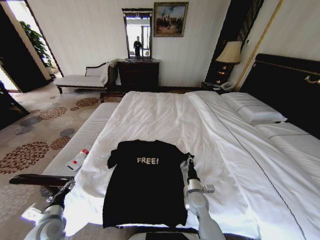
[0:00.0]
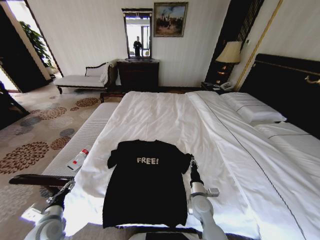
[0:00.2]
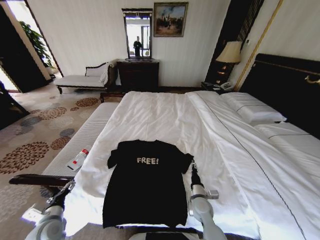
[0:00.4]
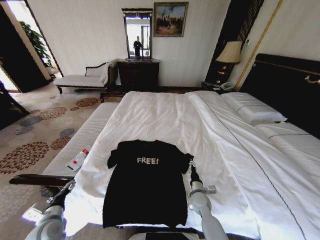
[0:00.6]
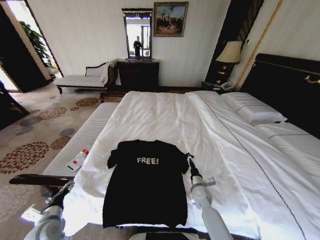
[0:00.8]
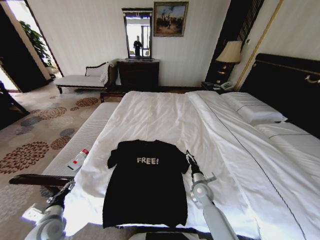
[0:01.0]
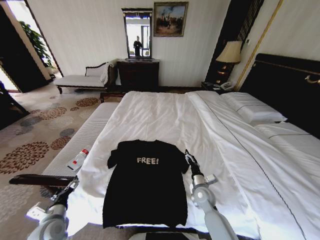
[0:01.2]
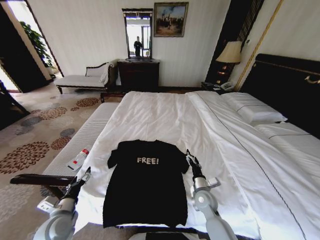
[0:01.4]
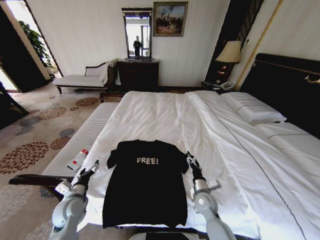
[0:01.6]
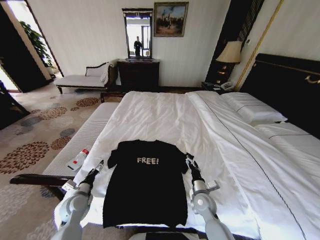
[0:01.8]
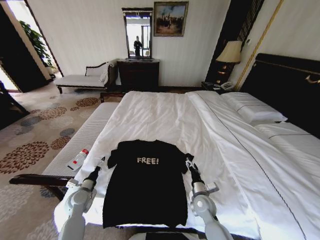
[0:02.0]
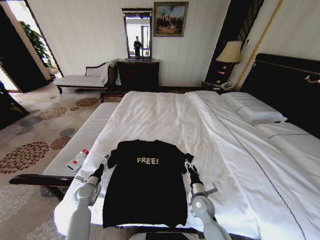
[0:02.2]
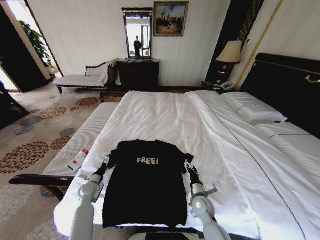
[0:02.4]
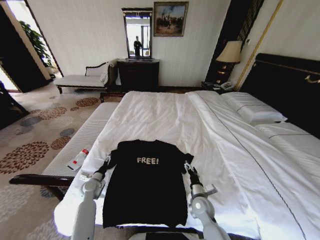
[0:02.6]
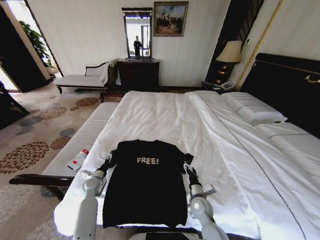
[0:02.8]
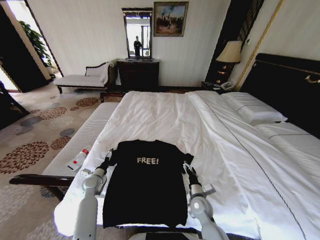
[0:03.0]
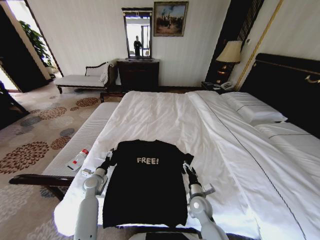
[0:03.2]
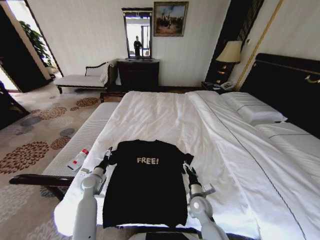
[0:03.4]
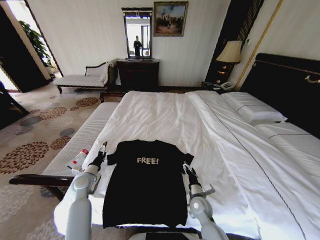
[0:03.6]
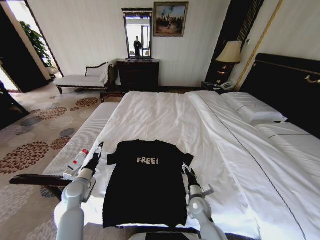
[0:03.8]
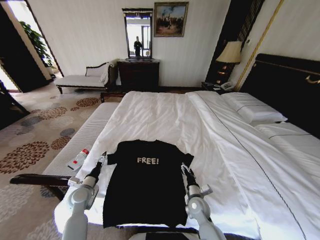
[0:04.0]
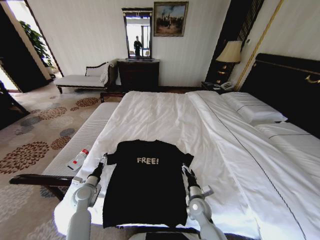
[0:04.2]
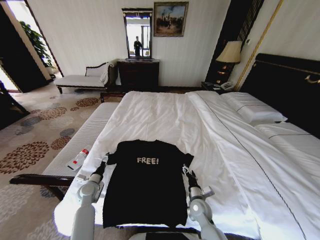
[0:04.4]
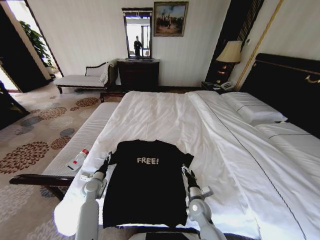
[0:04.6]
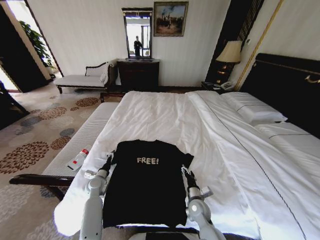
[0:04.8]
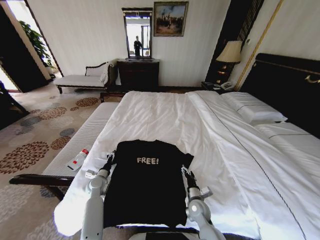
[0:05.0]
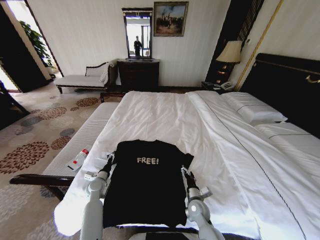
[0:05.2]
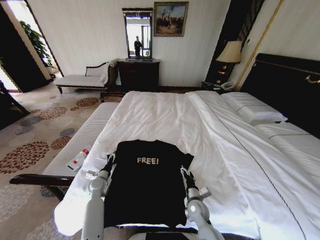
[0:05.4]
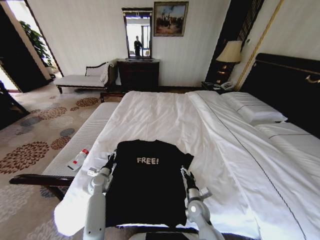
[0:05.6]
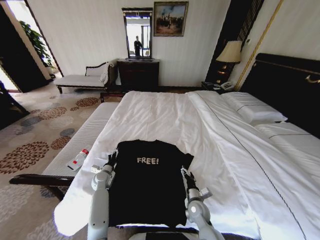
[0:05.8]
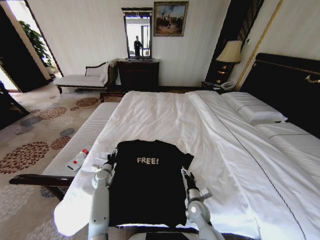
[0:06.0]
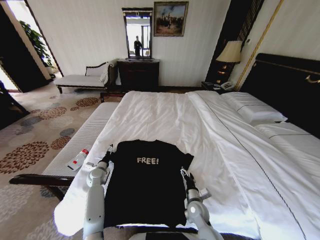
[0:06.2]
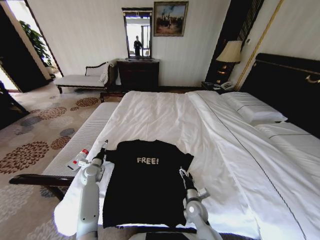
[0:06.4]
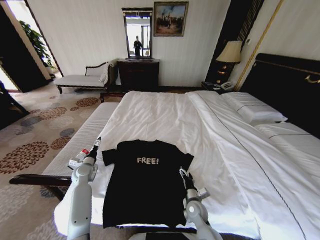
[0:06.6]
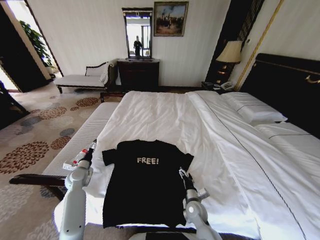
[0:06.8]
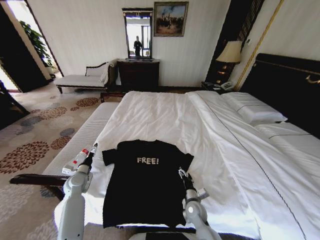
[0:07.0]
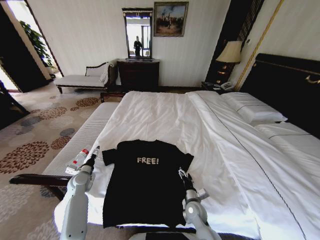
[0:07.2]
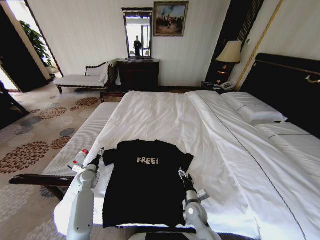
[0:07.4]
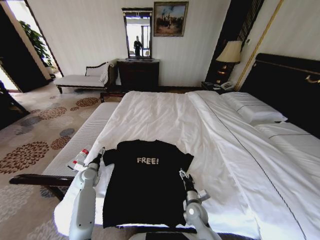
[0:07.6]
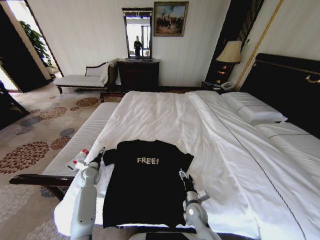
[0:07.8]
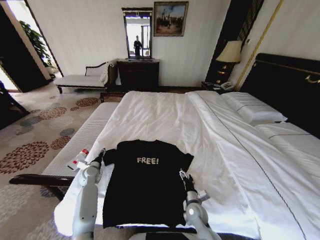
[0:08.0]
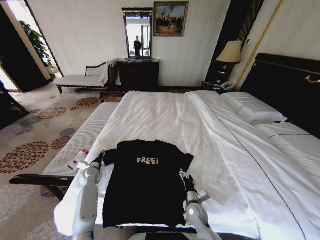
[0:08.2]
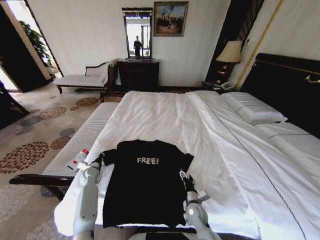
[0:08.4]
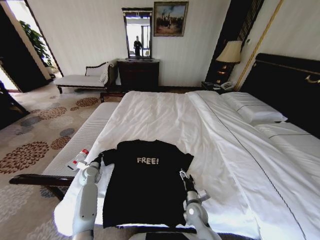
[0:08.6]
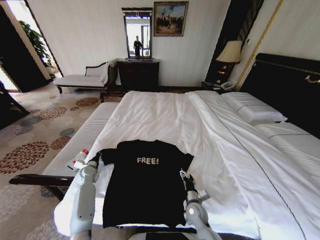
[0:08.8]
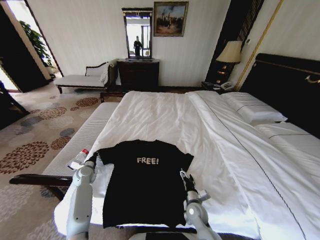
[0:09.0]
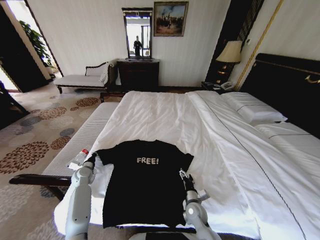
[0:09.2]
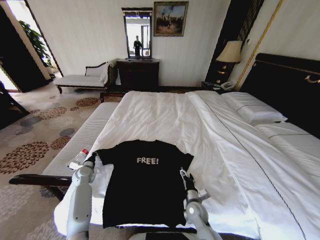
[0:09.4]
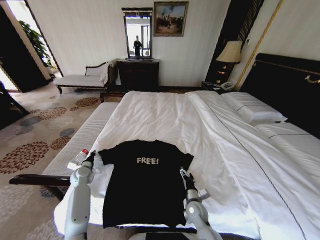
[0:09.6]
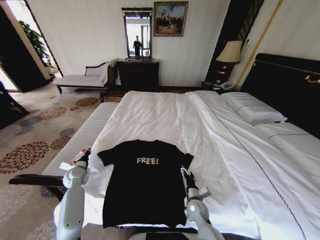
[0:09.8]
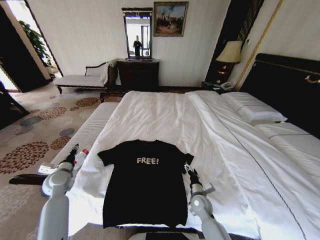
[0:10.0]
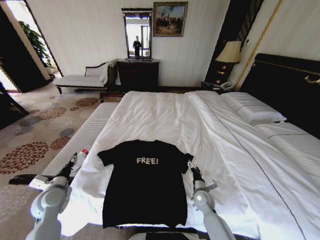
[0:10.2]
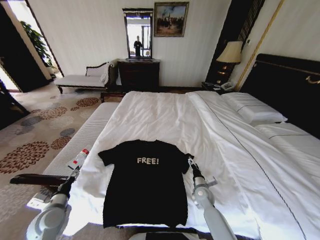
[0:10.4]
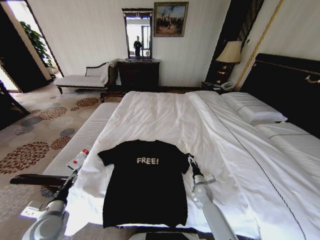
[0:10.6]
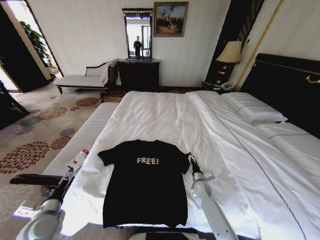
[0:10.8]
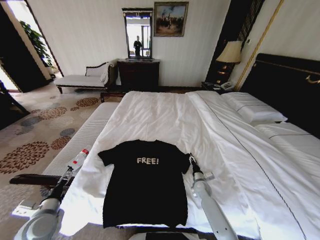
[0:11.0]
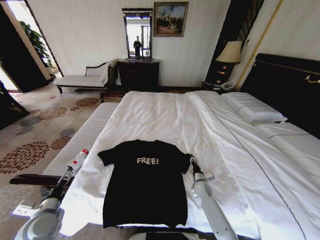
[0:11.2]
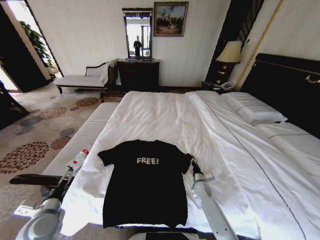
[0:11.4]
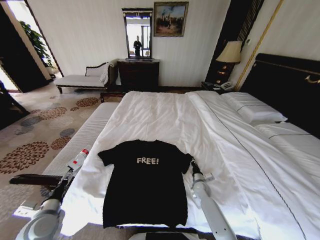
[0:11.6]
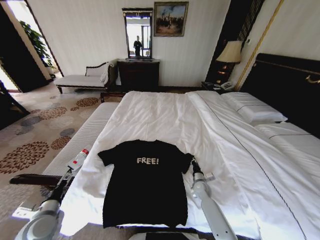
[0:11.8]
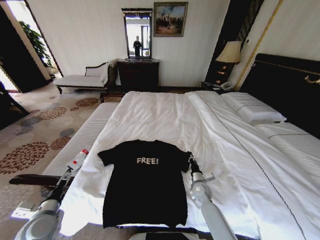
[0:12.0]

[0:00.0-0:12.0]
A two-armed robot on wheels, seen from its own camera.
Task of the whole recording: Fold the clothes on the bed.
0:00.0 to 0:01.6: The right gripper opens up. Meanwhile the left gripper is displaced forward by approximately 5 cm.
0:01.6 to 0:03.0: The left gripper goes roughly 15 cm forward and downward.
0:03.0 to 0:04.4: The left gripper travels upward and back again, approximately 10 cm each way.
0:04.4 to 0:06.0: The left gripper moves forward, roughly 10 cm.
0:06.0 to 0:07.6: The left gripper is displaced to the left by roughly 5 cm.
0:07.6 to 0:09.0: The left gripper closes its fingers.
0:09.0 to 0:10.4: The left gripper is displaced backward by roughly 20 cm, and opens up. The right gripper goes about 10 cm forward and to the right.
0:10.4 to 0:12.0: The right gripper closes up.

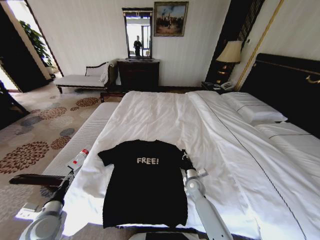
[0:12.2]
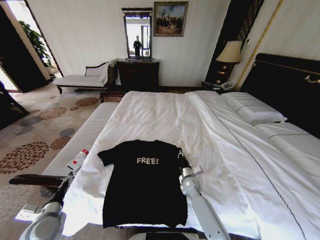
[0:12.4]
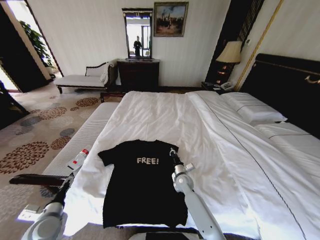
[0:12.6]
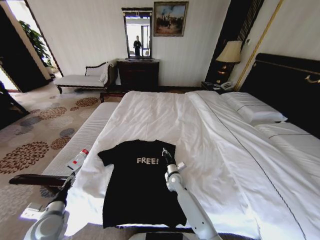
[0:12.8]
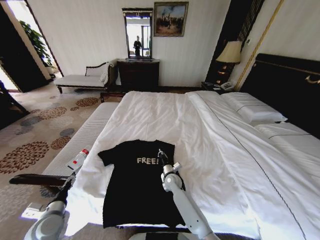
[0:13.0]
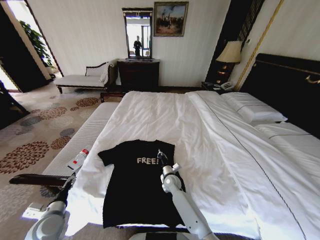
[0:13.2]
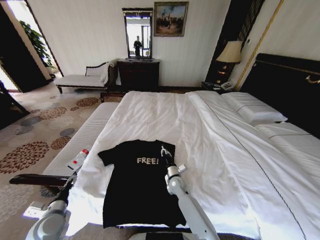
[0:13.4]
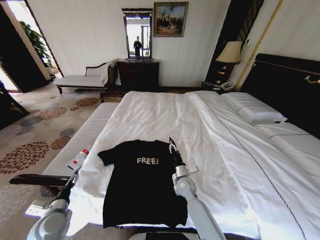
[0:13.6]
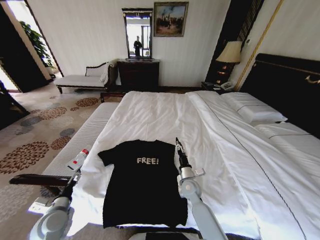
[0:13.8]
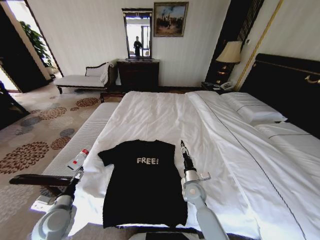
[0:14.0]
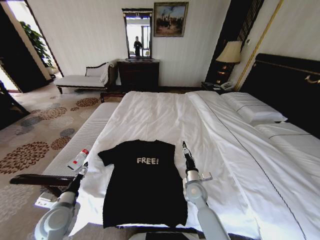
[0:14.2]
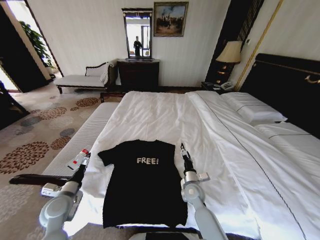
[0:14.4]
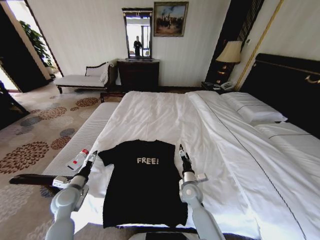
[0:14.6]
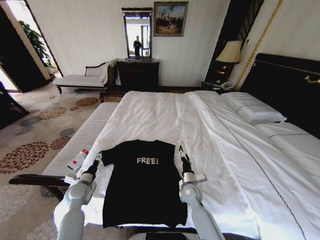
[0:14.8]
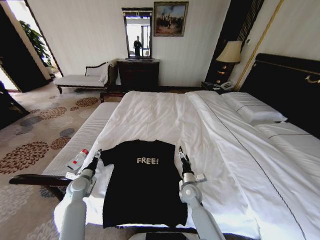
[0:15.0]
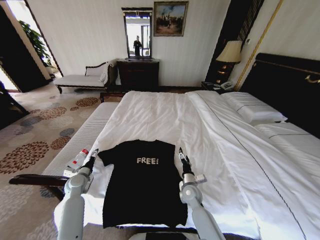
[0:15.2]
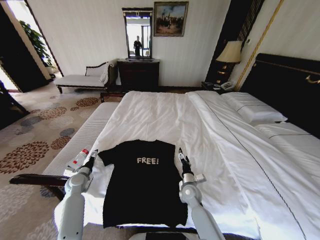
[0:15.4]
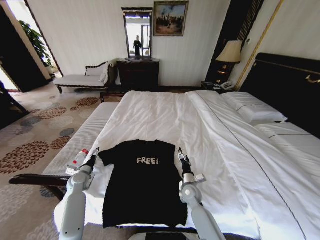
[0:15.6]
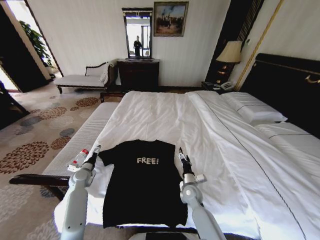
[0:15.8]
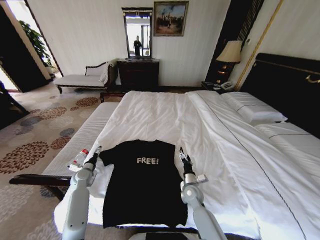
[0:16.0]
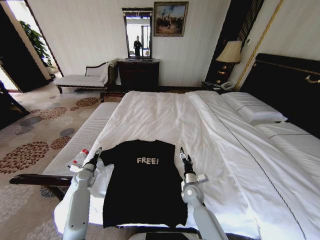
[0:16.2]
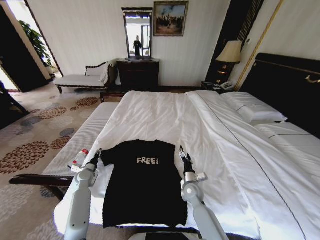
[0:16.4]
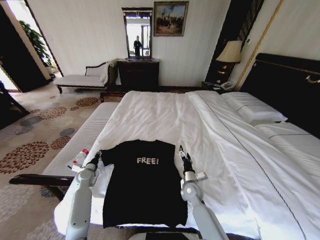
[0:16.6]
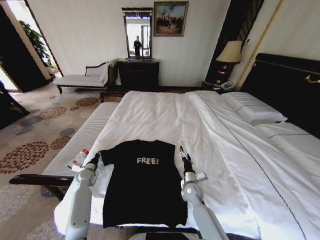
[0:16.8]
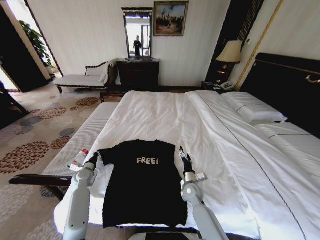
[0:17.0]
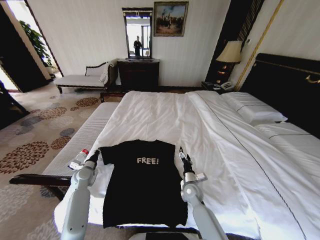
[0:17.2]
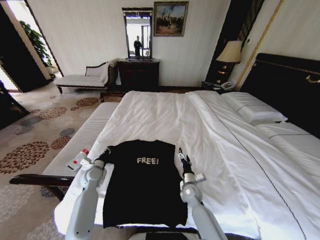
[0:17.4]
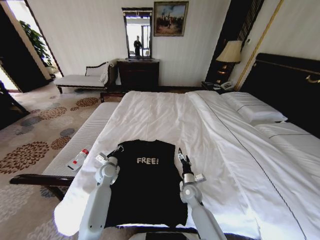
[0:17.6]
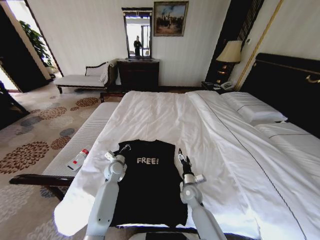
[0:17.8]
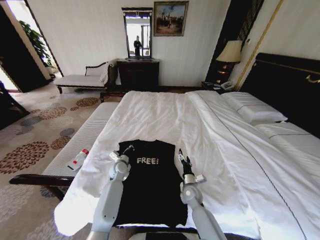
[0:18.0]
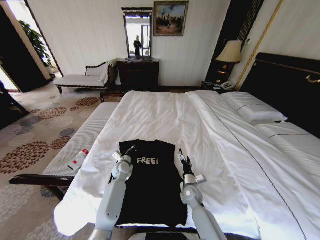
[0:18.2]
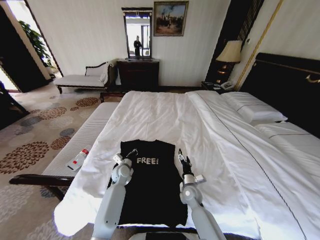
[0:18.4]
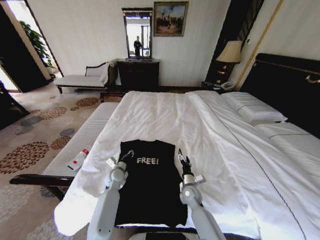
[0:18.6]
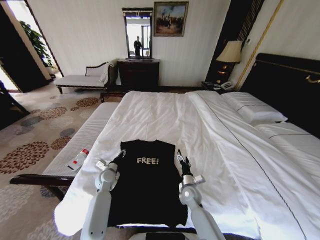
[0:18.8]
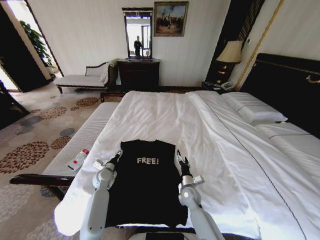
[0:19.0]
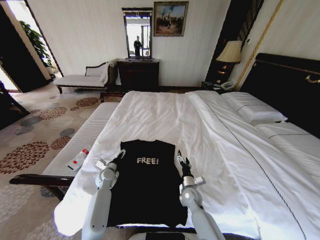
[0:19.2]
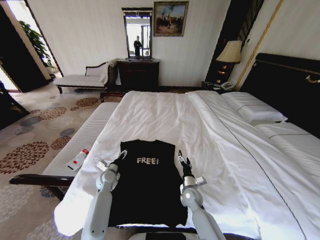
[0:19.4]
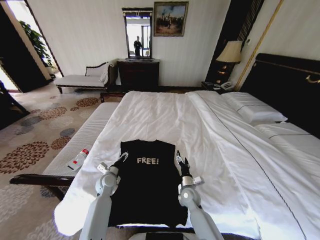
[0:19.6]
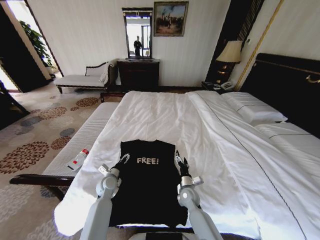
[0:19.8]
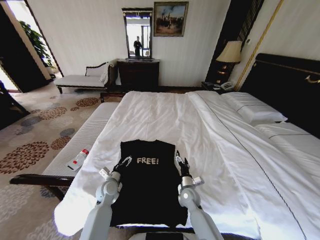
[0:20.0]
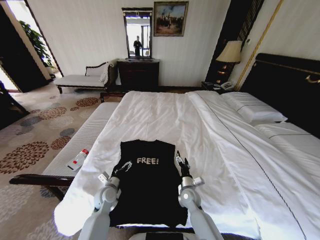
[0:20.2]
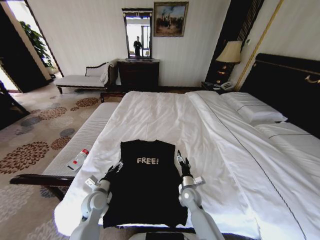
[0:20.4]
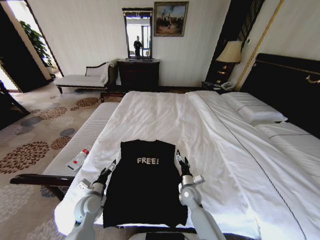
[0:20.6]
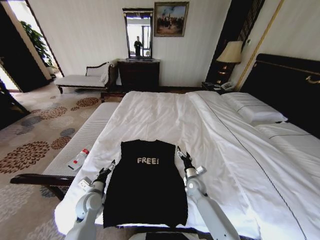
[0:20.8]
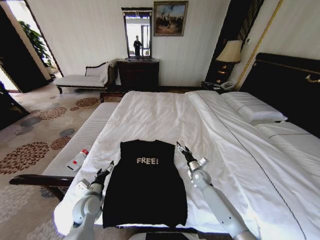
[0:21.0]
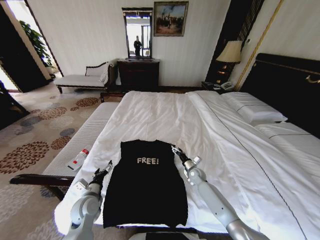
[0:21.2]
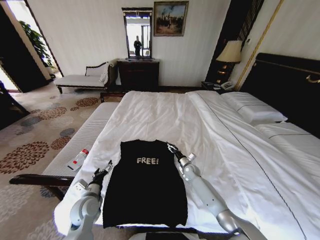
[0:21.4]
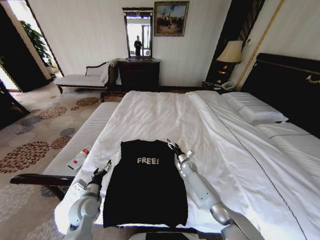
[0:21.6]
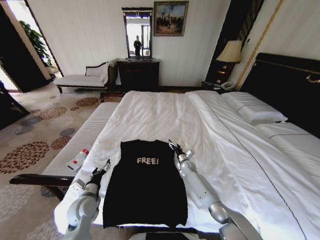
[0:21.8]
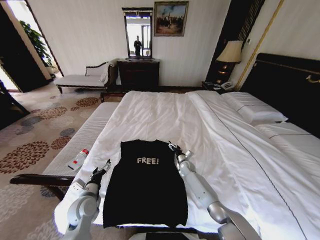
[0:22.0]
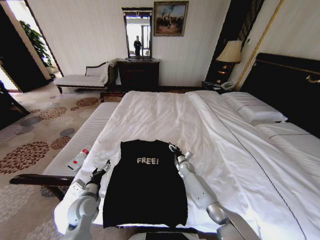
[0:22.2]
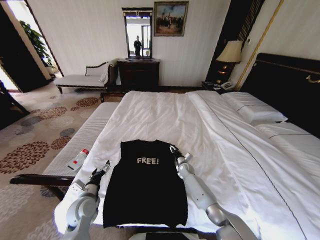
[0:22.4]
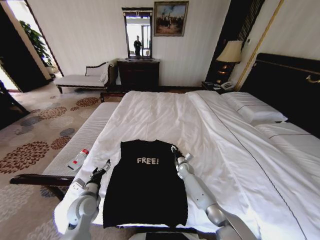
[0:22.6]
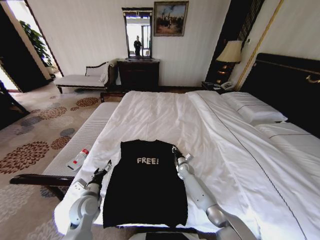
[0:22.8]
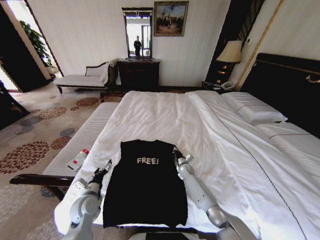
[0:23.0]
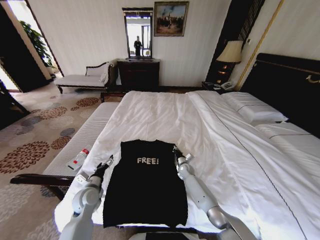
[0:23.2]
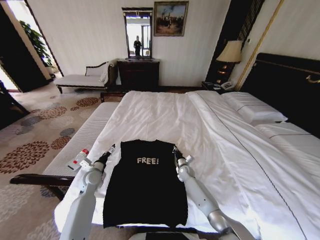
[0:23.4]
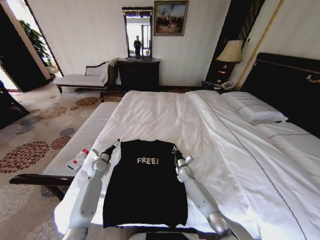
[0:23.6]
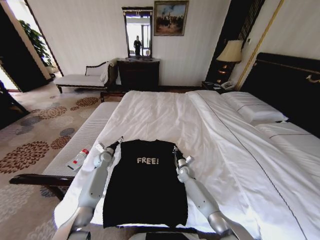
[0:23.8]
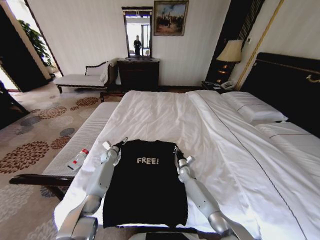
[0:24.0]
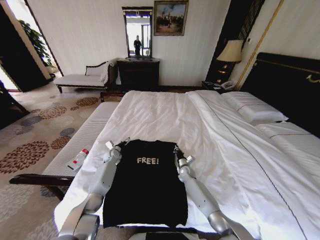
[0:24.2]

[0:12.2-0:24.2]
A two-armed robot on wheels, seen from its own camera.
Task of the whole recording: Fold the clothes on the bed.
0:12.2 to 0:13.8: The right gripper heads upward and to the left, covering roughly 10 cm, and opens its fingers.
0:13.8 to 0:15.2: The right gripper opens up. The left gripper goes some 15 cm forward.
0:15.2 to 0:16.6: The left gripper moves roughly 5 cm, and closes its fingers.
0:16.6 to 0:18.2: The left gripper travels to the right by roughly 20 cm.
0:18.2 to 0:19.8: The left gripper moves backward and to the left, some 10 cm, and opens.
0:19.8 to 0:21.2: The left gripper moves backward, about 10 cm; the right gripper travels forward and to the right by about 15 cm.
0:21.2 to 0:22.6: The right gripper heads forward, covering roughly 5 cm, and closes its fingers.
0:22.6 to 0:24.2: The right gripper closes up, while the left gripper goes about 30 cm forward.
